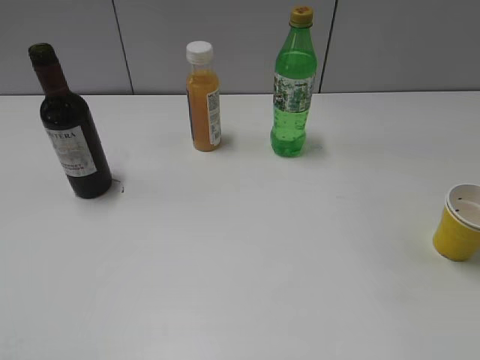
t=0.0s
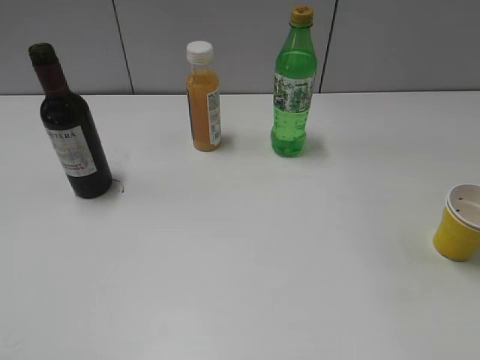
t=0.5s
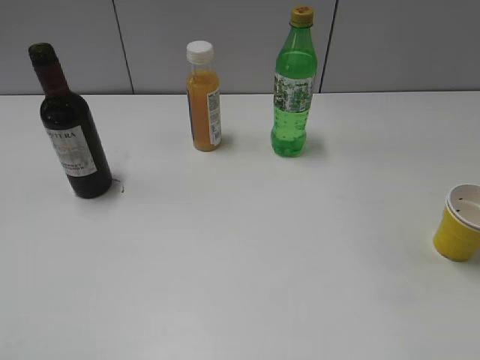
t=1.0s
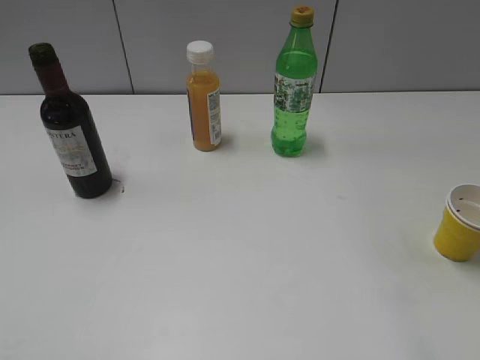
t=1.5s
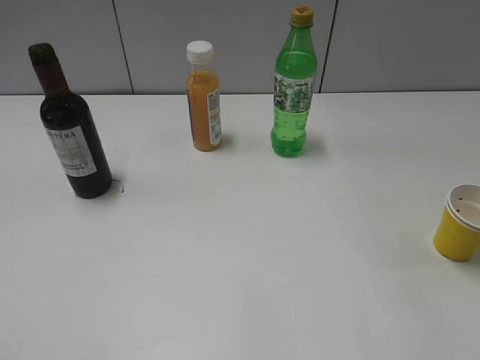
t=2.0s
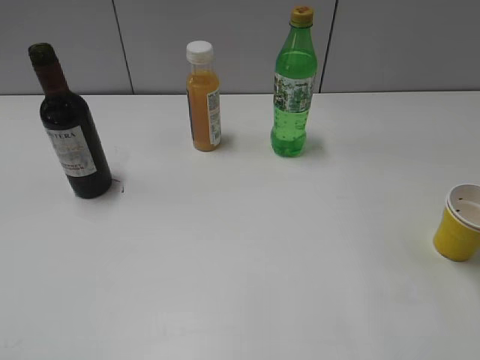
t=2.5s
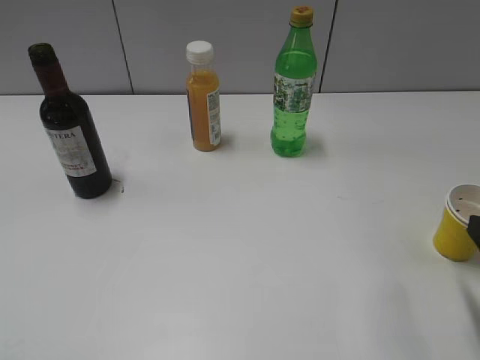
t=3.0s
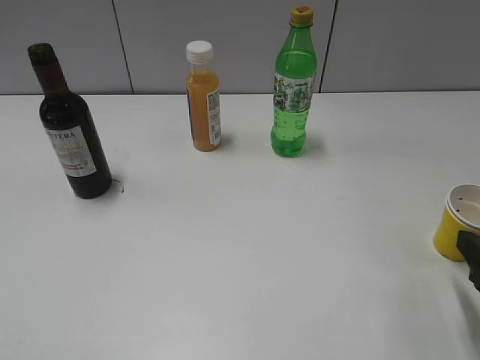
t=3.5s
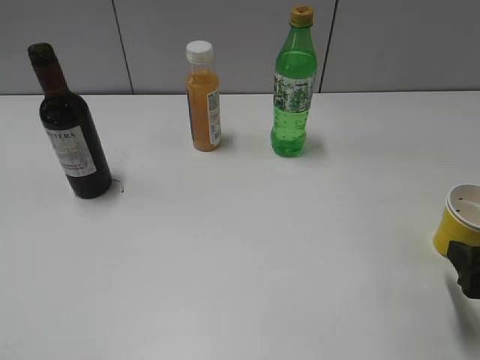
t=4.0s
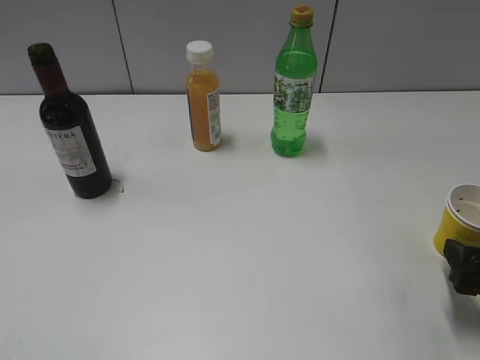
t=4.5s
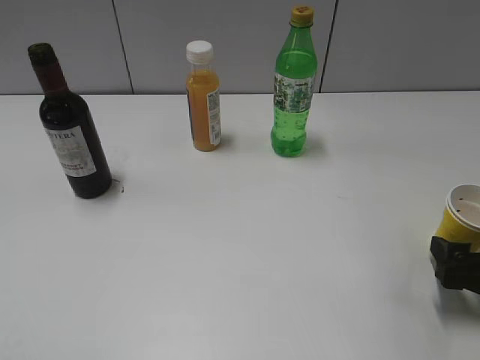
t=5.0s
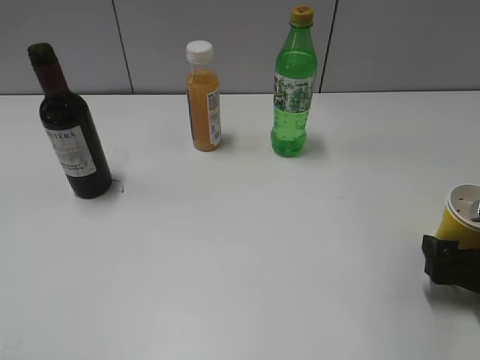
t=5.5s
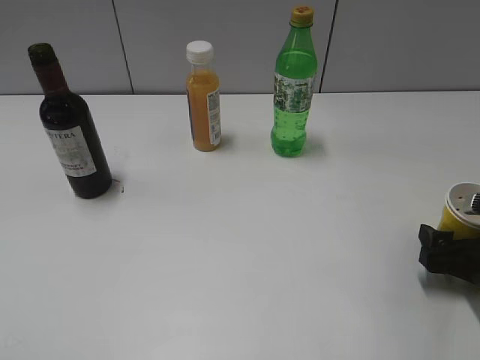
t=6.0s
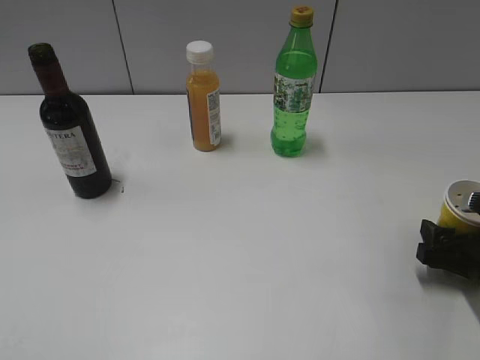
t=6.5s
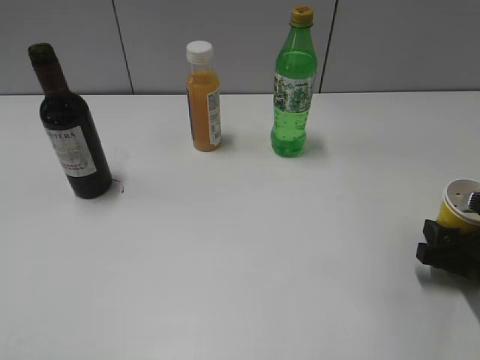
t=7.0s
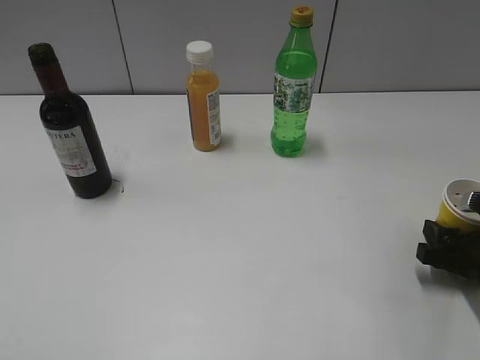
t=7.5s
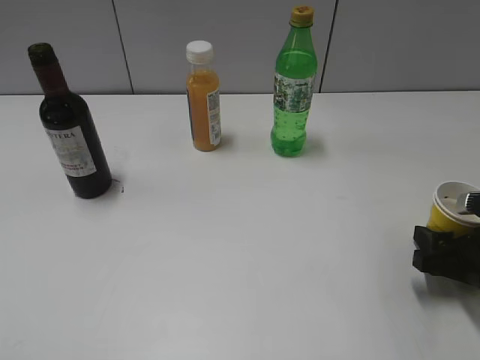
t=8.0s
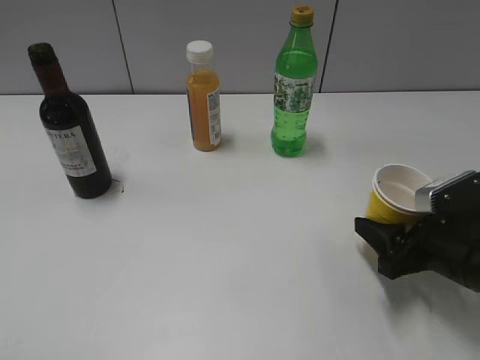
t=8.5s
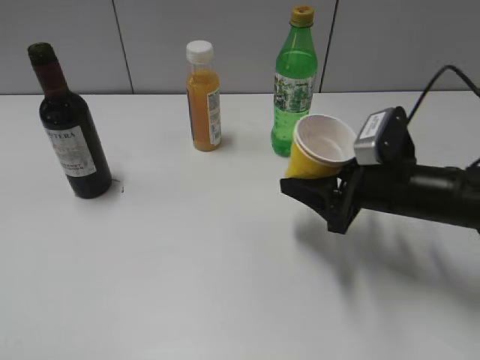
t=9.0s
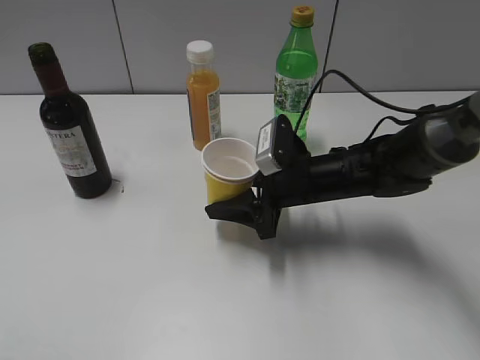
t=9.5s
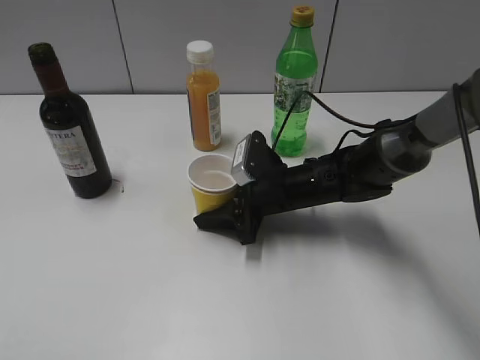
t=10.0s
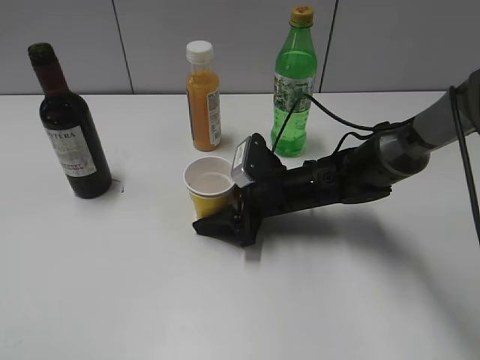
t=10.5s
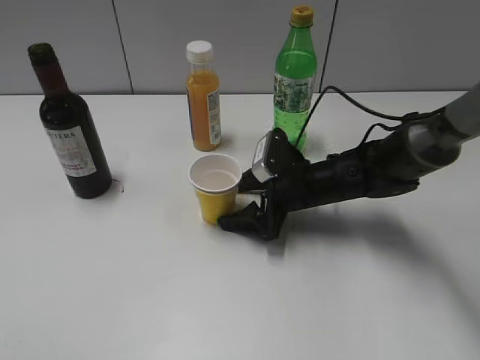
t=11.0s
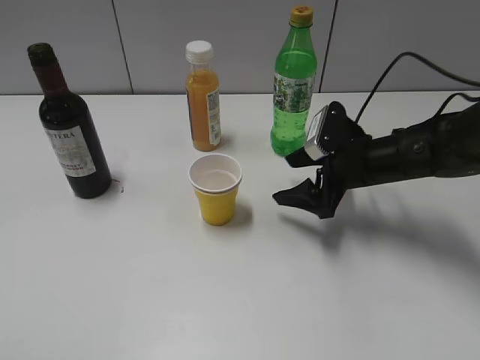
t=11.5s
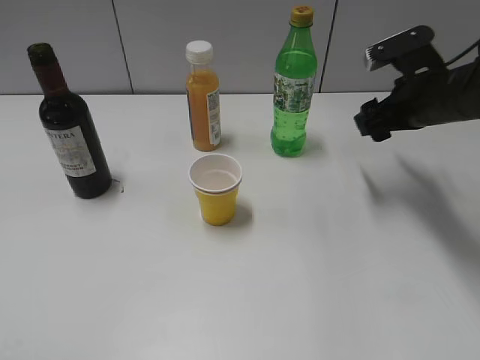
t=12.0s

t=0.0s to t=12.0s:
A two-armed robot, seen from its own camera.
Step, t=1.0s to t=7.0s: Grasp the yellow paper cup with right gripper.
Step, t=7.5s to t=11.0s: Place the yellow paper cup on the table with right gripper.
t=2.0s to t=4.0s: The right gripper heads downward, covering roughly 15 cm, and opens.
t=4.0s to t=6.0s: The right gripper is displaced downward and forward by approximately 10 cm.
t=6.0s to t=8.0s: The right gripper closes.
t=8.0s to t=10.0s: The right gripper heads to the left and forward, covering some 25 cm.
t=10.0s to t=12.0s: The right gripper is displaced to the right and upward by roughly 20 cm, and opens up.

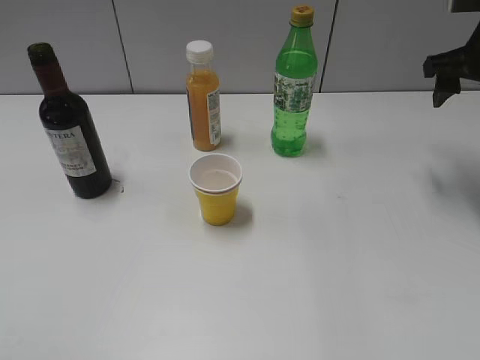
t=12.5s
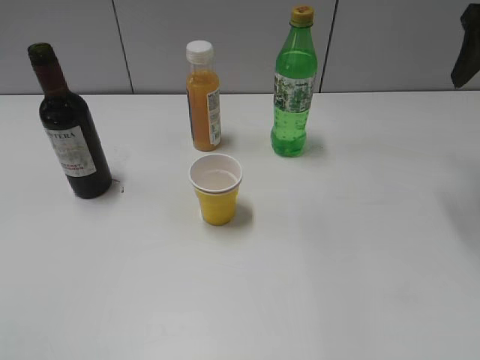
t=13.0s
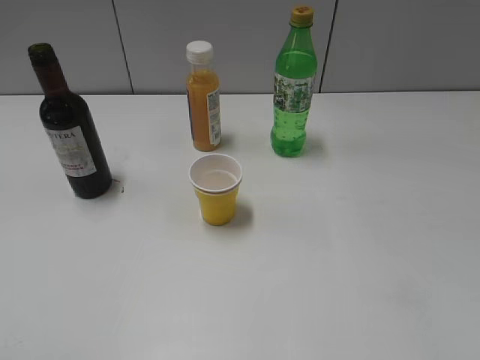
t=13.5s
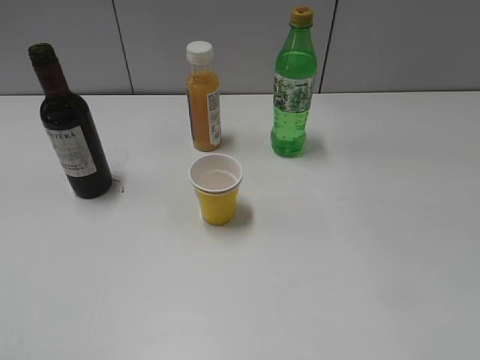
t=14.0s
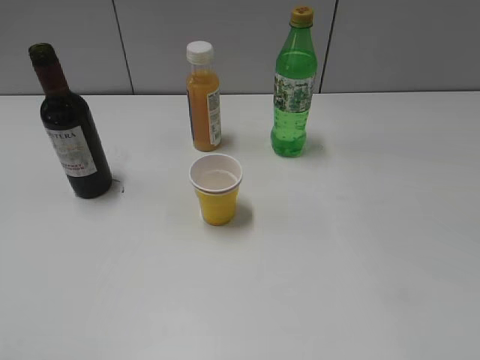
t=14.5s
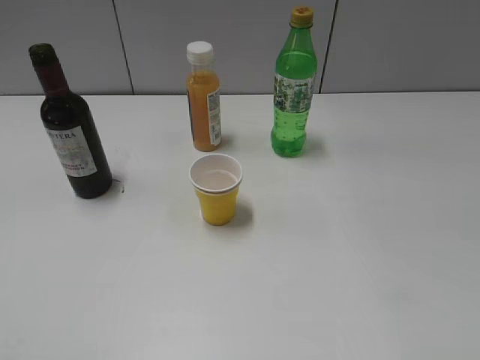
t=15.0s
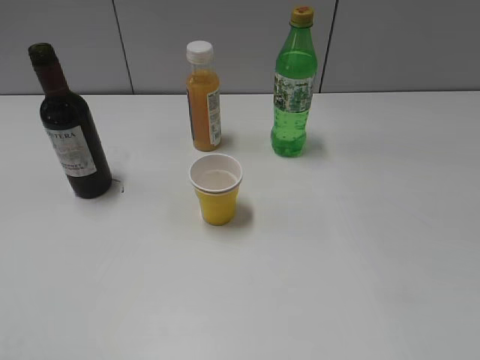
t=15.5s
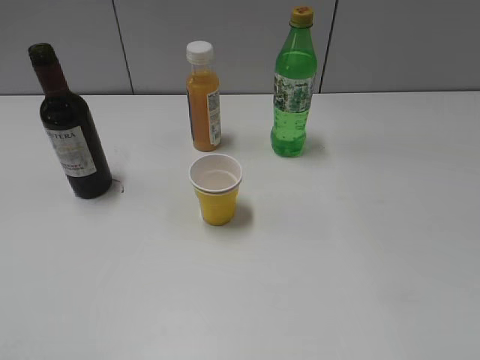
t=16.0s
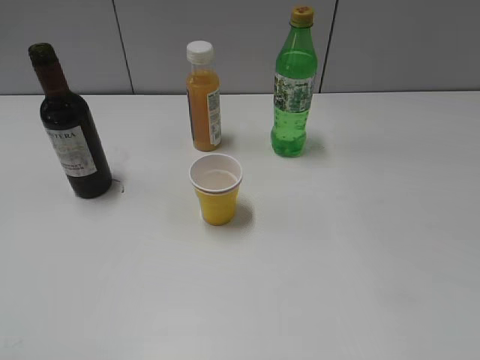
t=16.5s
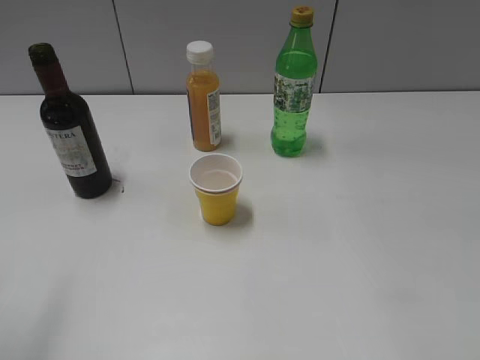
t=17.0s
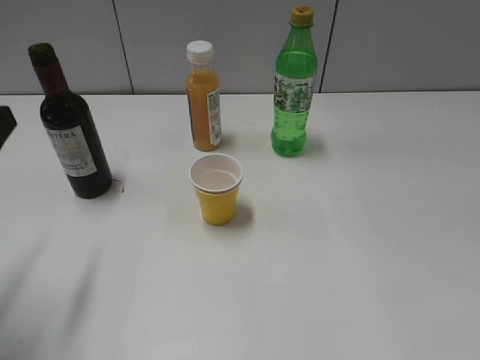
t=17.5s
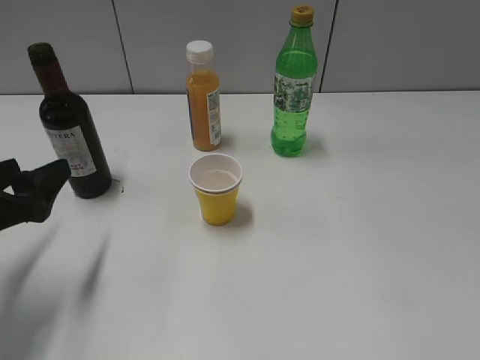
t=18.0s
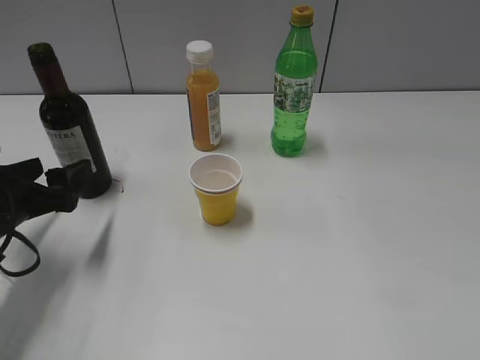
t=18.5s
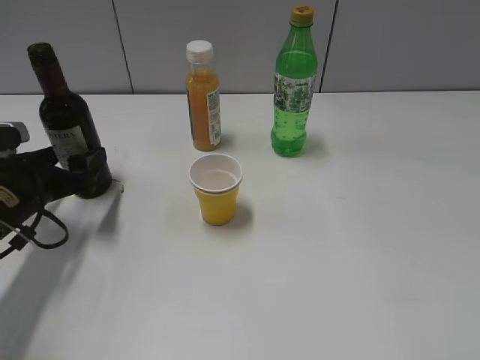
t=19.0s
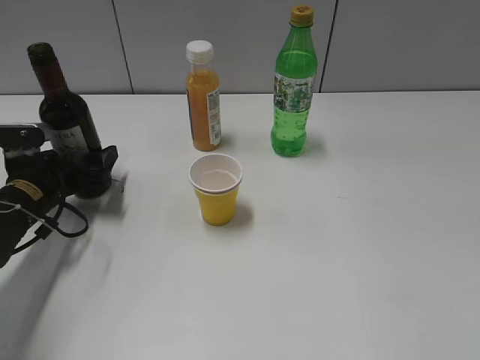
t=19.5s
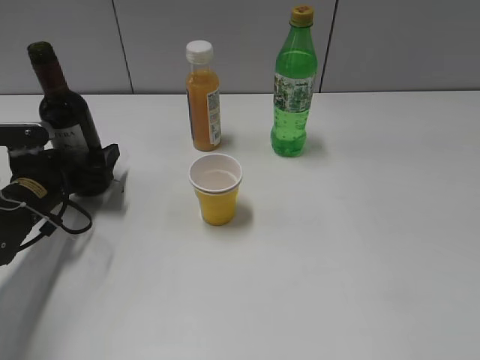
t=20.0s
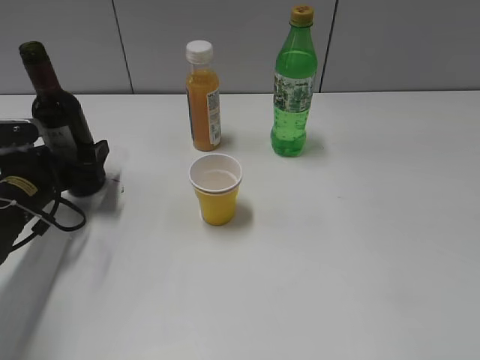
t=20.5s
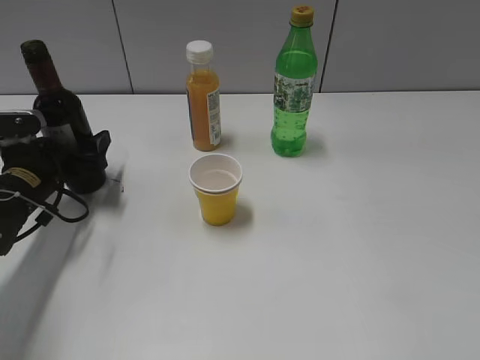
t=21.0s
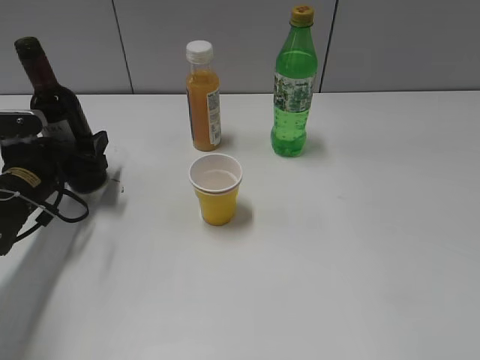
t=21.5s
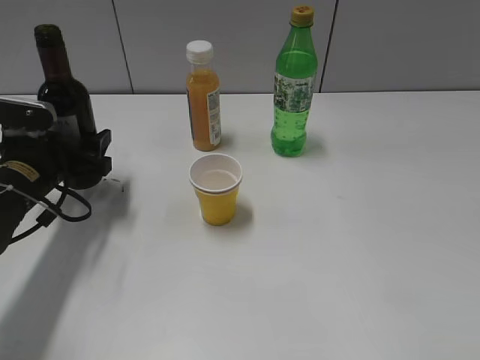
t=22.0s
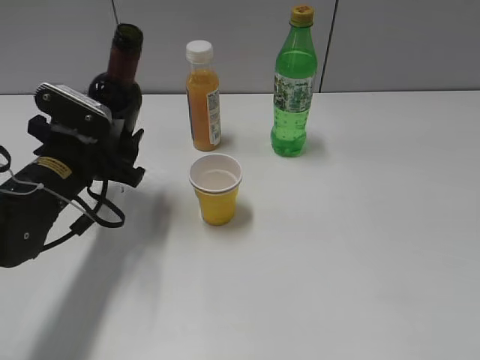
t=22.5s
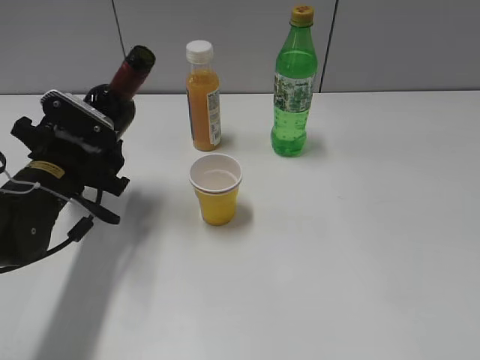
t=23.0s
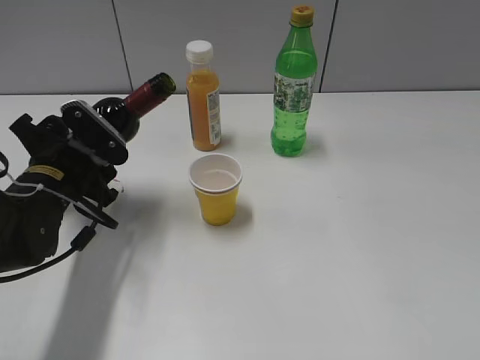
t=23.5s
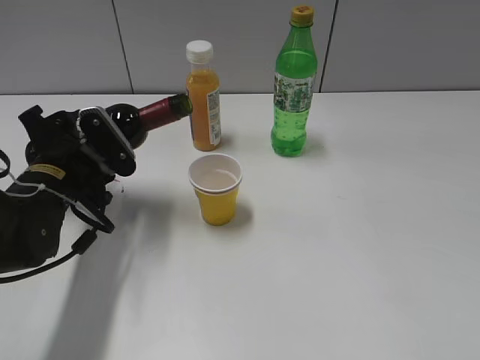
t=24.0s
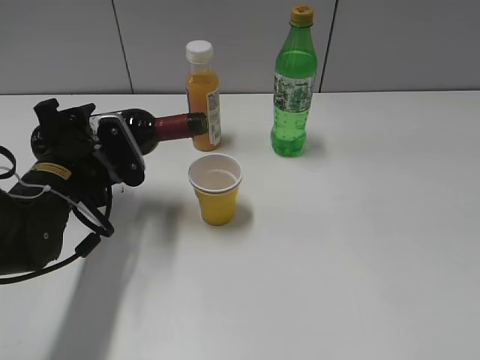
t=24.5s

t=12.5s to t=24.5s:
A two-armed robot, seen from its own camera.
Step, t=12.5s to t=21.5s: Grasp the bottle with red wine with left gripper.
t=12.5s to t=14.5s: The right gripper heads backward, covering some 40 cm.
t=16.5s to t=18.5s: The left gripper goes roughly 30 cm forward and downward.
t=18.5s to t=20.5s: The left gripper moves forward, roughly 10 cm.
t=20.5s to t=22.5s: The left gripper goes roughly 10 cm to the right and upward.

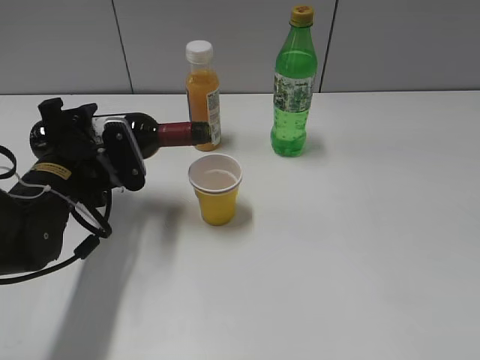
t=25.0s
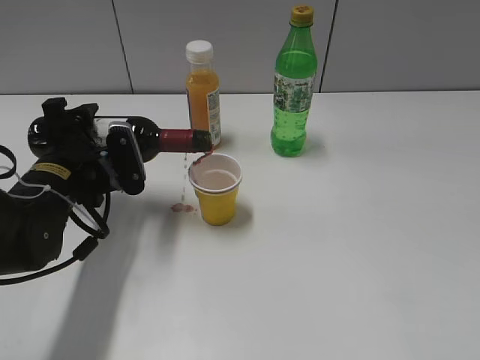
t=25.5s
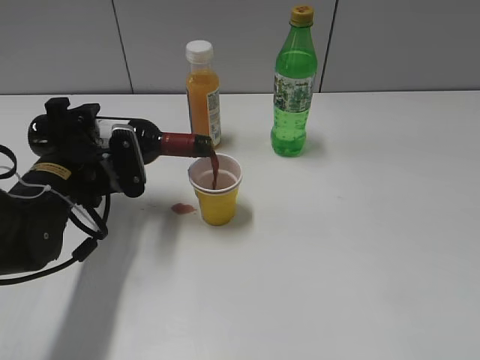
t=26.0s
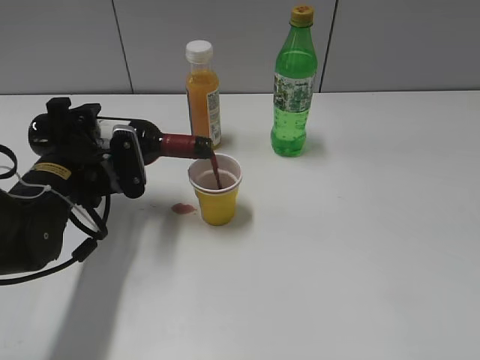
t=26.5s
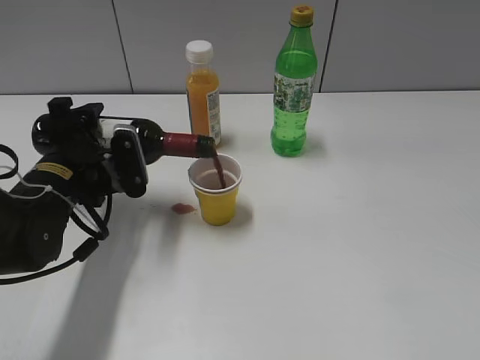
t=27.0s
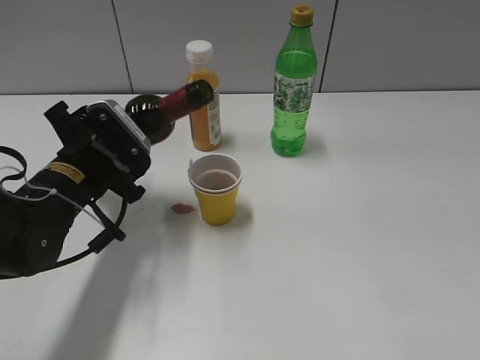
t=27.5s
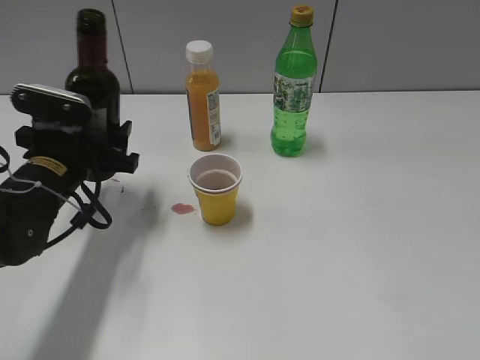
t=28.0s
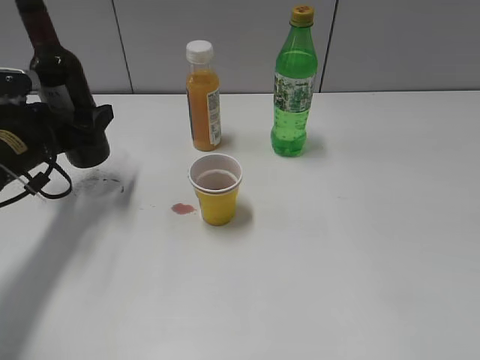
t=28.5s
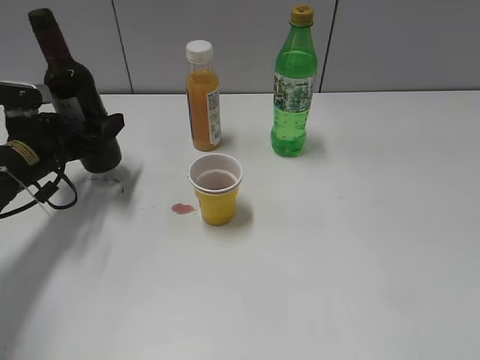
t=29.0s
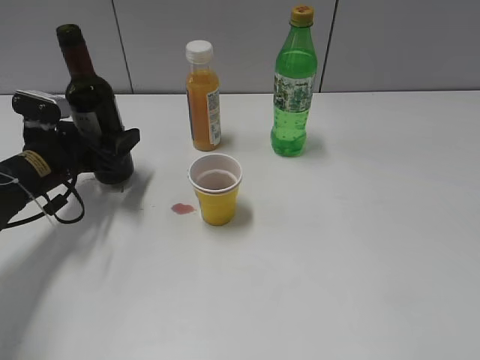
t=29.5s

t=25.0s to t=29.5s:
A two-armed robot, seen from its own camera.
Step, t=25.0s to t=27.5s: Pour the red wine from bottle to cup with left gripper.
t=25.0s to t=27.0s: The grippers stay close to where they were, moving slightly.
t=27.0s to t=29.5s: The left gripper heads forward and to the left, covering roughly 10 cm.
